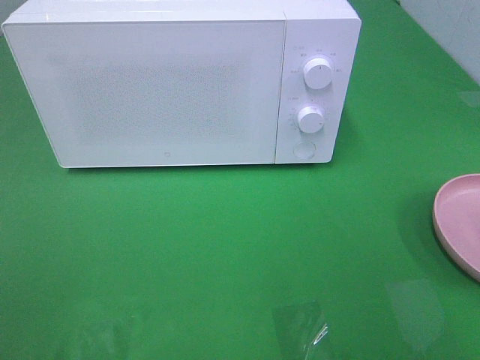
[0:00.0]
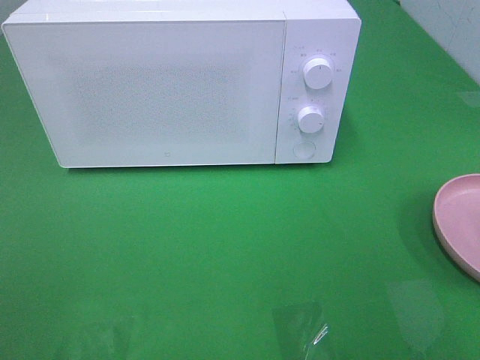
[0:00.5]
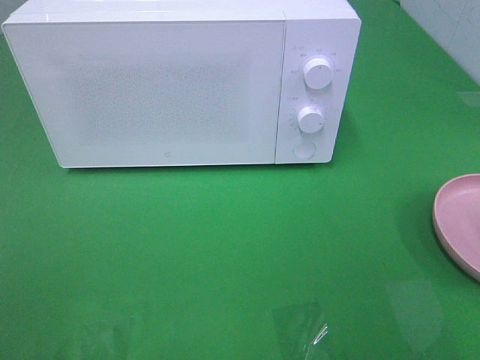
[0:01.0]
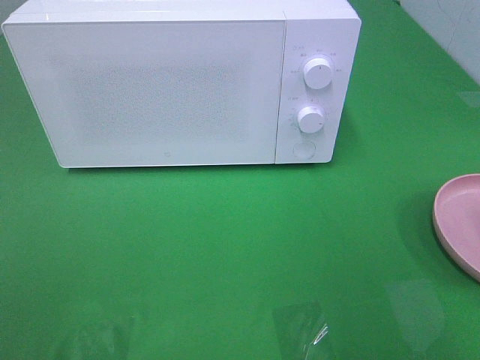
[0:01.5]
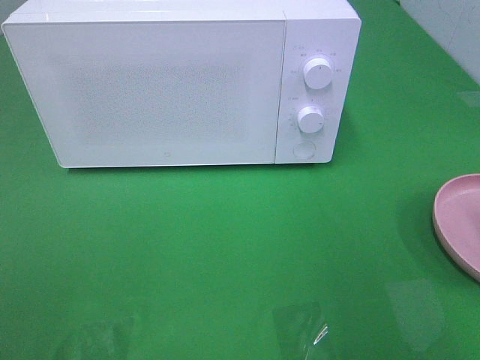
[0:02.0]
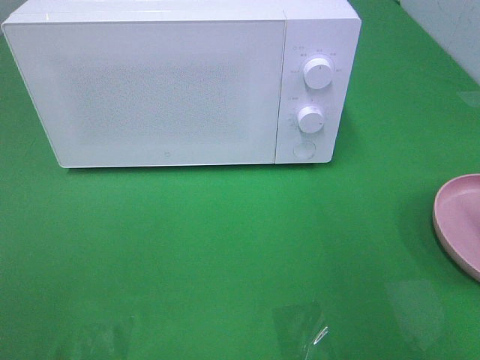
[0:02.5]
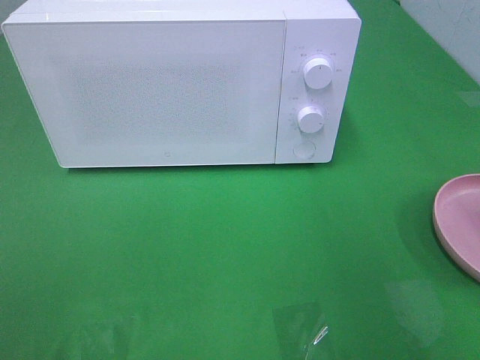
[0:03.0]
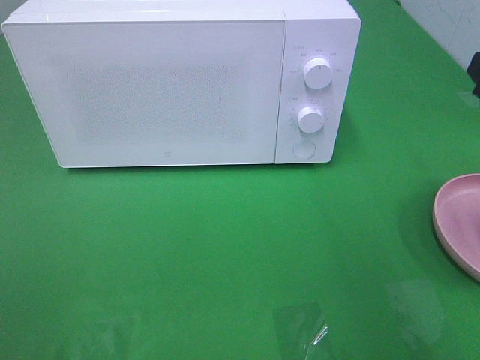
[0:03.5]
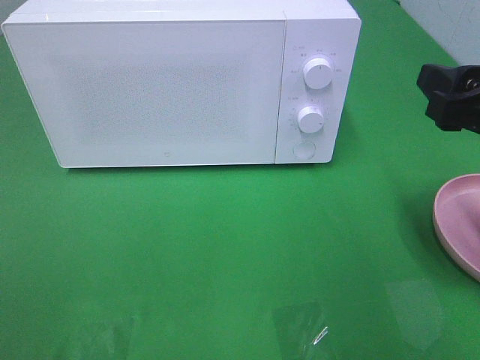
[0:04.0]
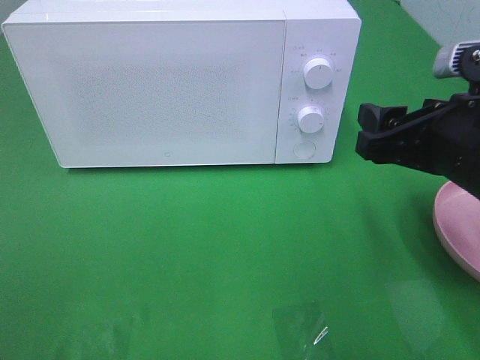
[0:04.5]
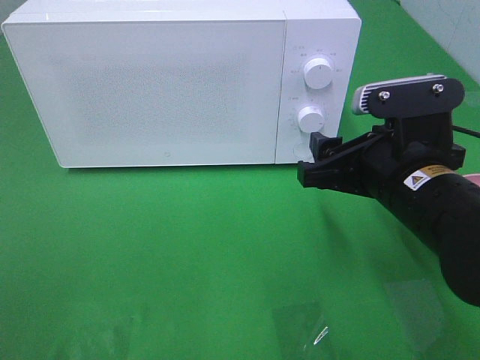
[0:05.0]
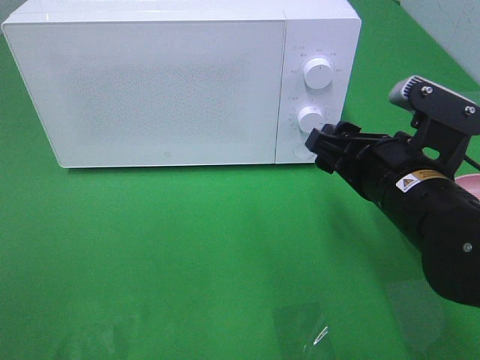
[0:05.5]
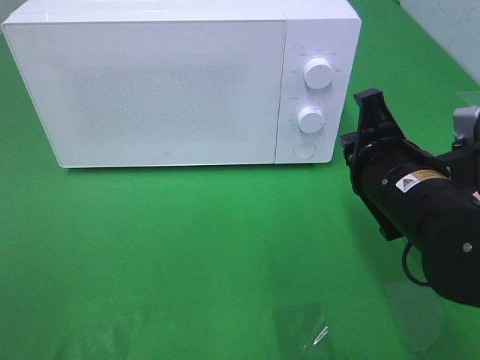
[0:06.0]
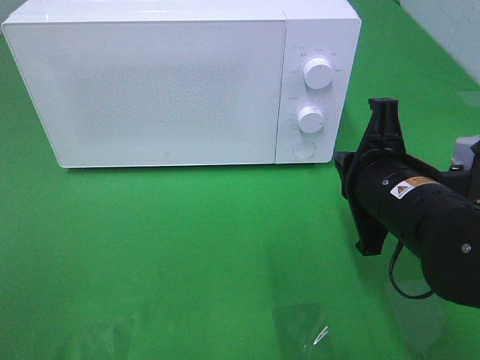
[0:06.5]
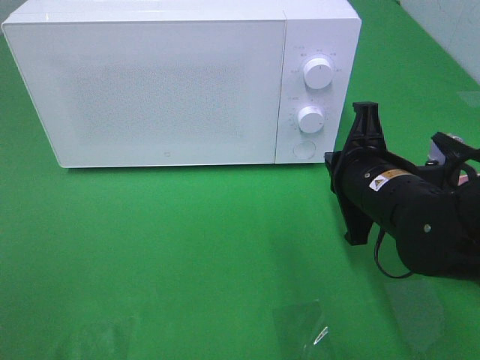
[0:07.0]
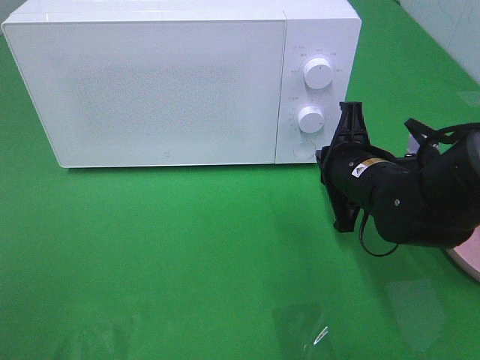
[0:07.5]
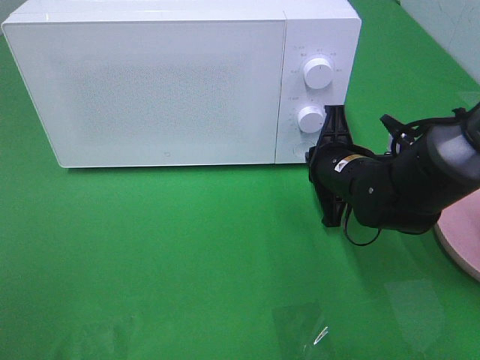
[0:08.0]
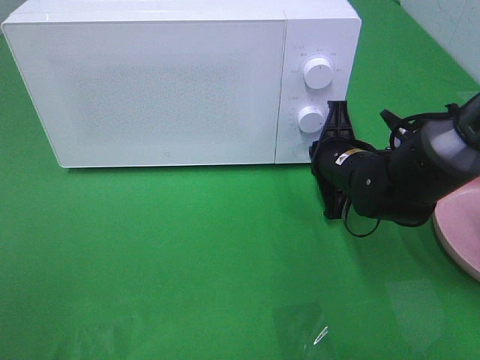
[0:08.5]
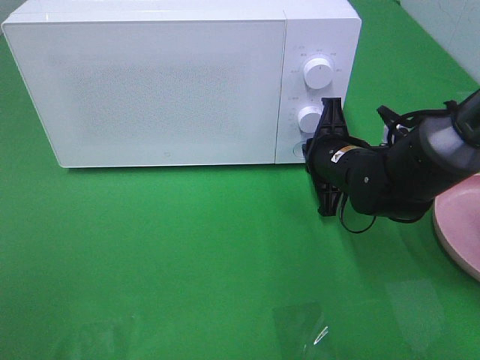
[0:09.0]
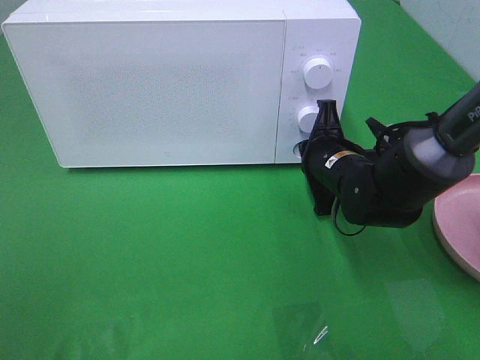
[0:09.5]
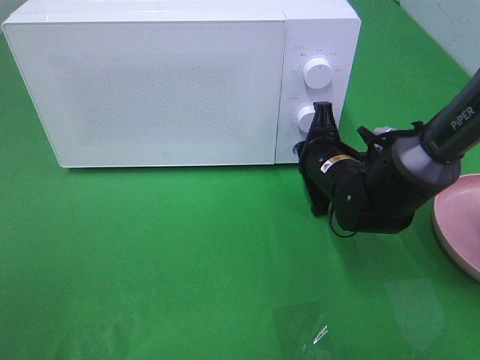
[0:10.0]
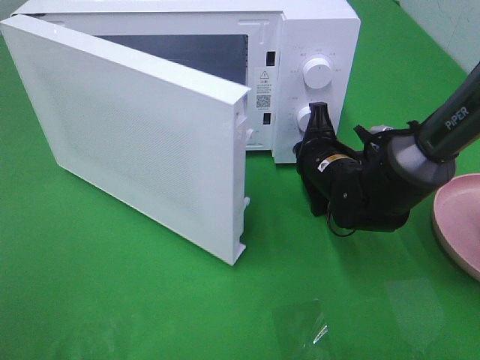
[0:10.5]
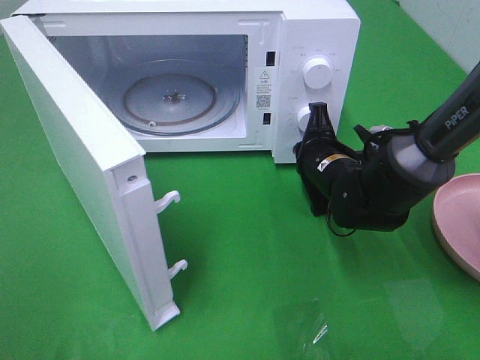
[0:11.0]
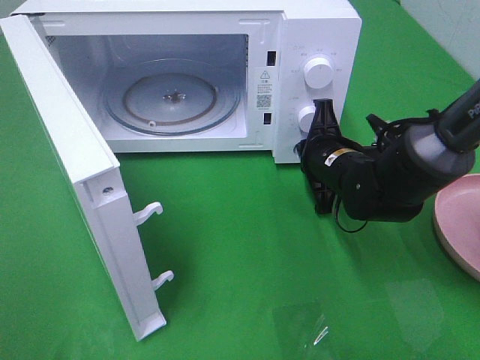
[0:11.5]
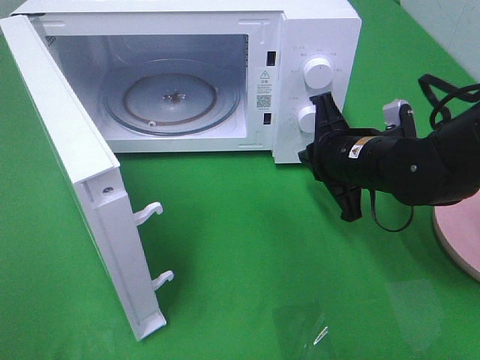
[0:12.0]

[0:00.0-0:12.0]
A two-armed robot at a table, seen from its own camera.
Task of the whole recording: Heat the burger.
Step, 0:00.0 to 0:11.5: Right hand: press the switch.
0:02.0 to 0:04.0: The right gripper is displaced downward by approximately 5 cm.
0:04.0 to 0:06.0: The right gripper moves to the left and downward, about 10 cm, and closes up.
0:06.0 to 0:08.0: The right gripper moves forward and downward, approximately 10 cm.
0:08.0 to 0:10.0: The grippers stay close to where they were, moving slightly.
0:10.0 to 0:12.0: The right gripper travels upward by roughly 5 cm.

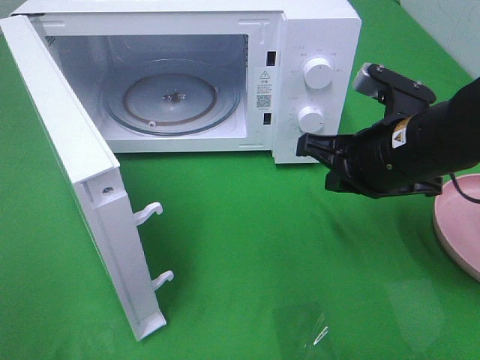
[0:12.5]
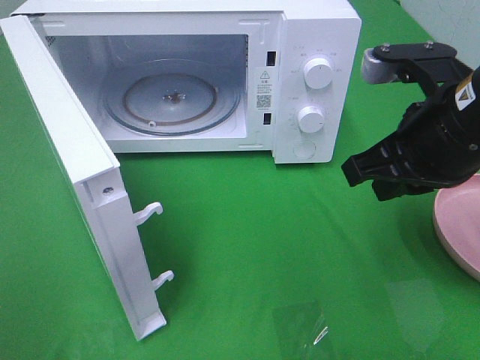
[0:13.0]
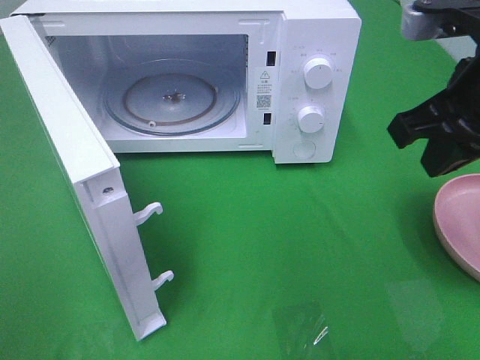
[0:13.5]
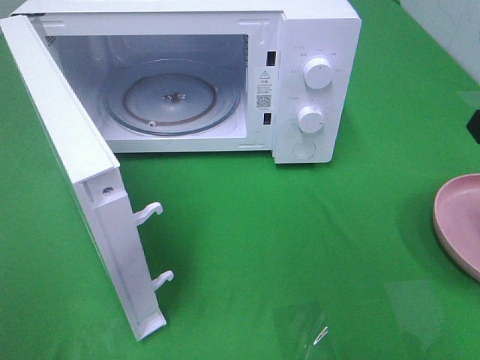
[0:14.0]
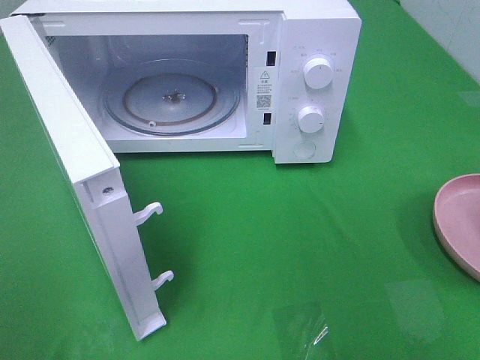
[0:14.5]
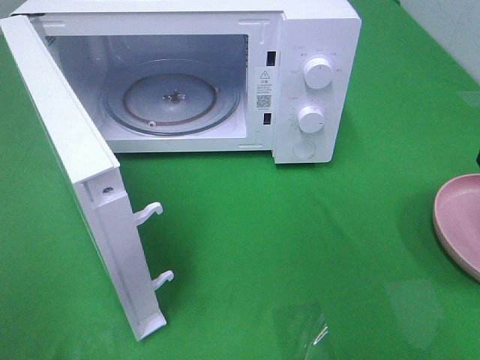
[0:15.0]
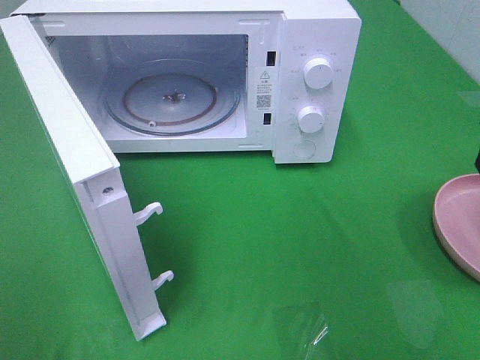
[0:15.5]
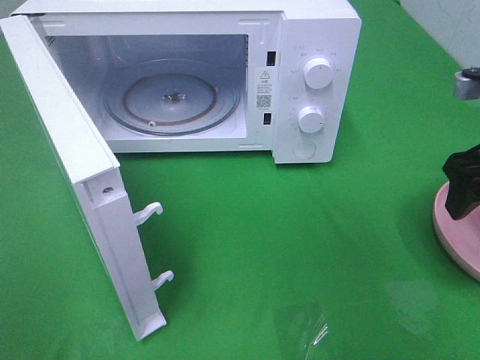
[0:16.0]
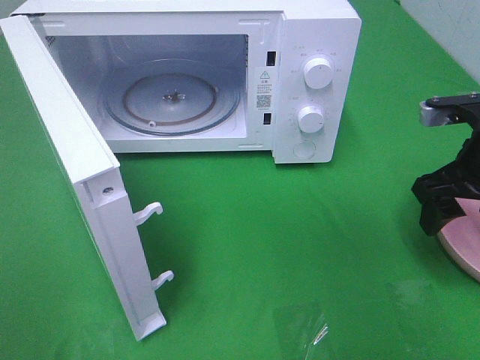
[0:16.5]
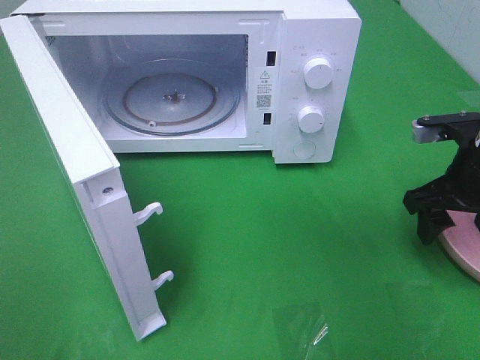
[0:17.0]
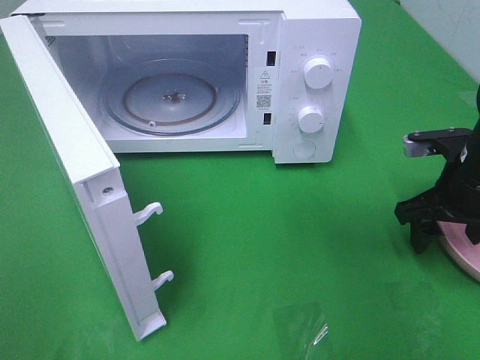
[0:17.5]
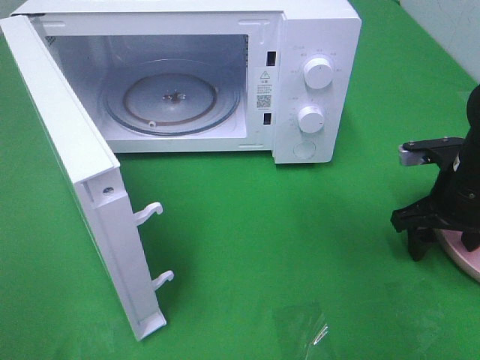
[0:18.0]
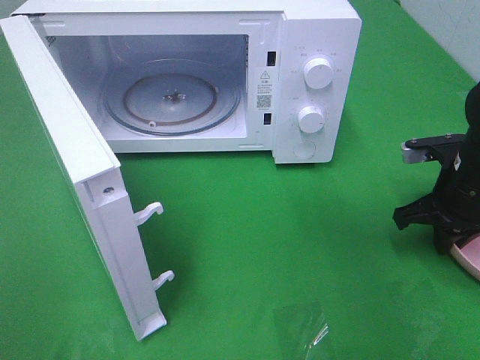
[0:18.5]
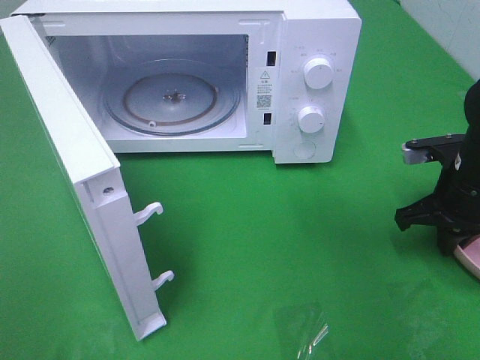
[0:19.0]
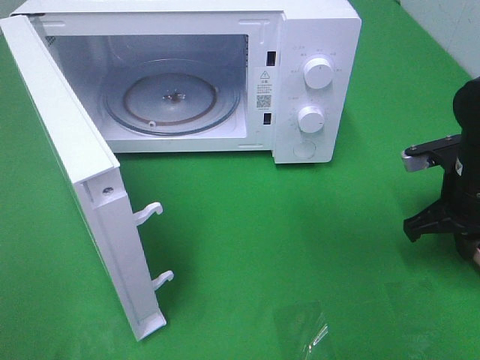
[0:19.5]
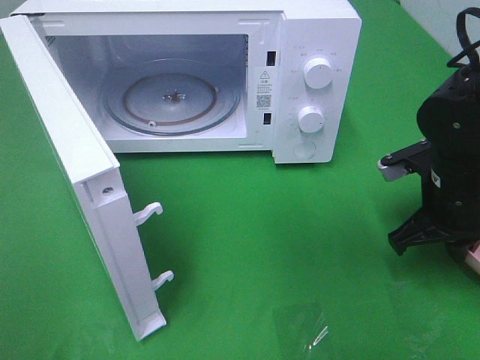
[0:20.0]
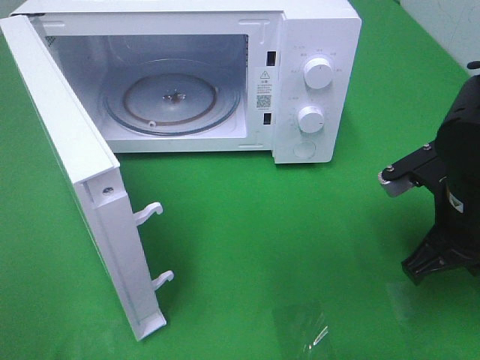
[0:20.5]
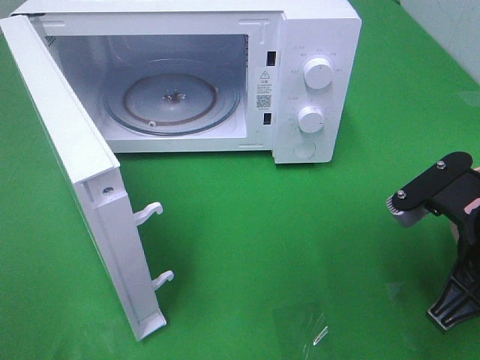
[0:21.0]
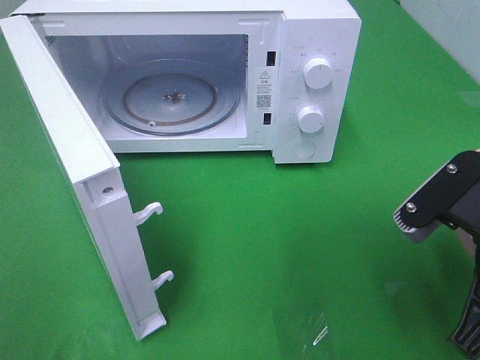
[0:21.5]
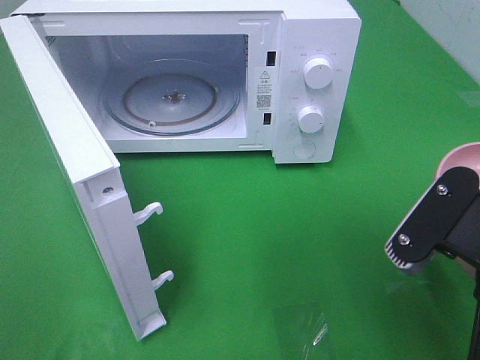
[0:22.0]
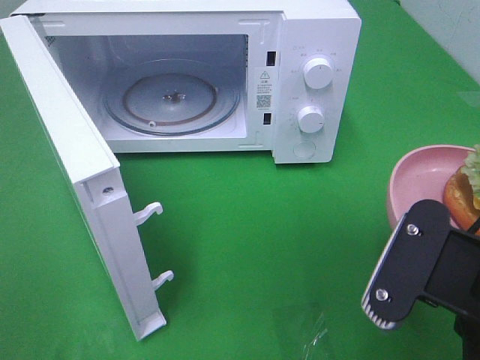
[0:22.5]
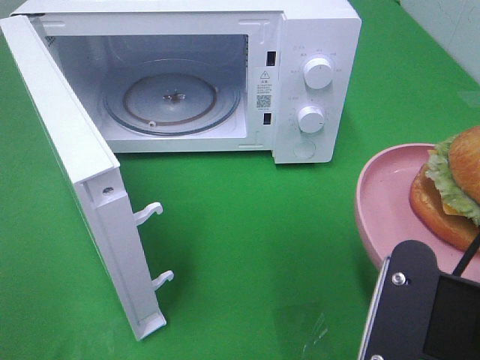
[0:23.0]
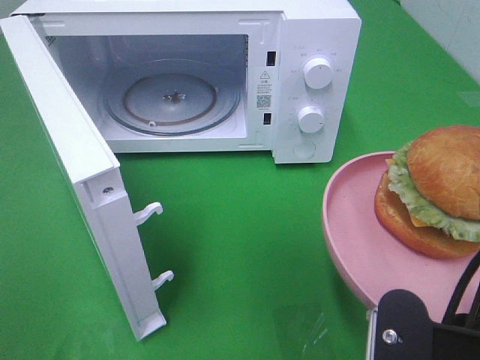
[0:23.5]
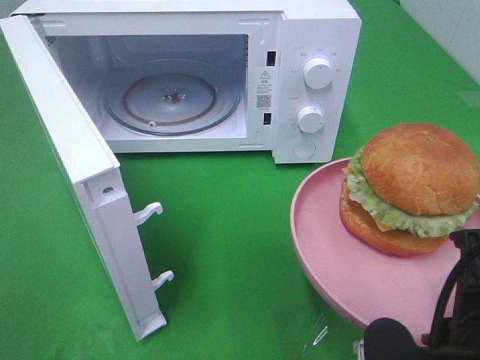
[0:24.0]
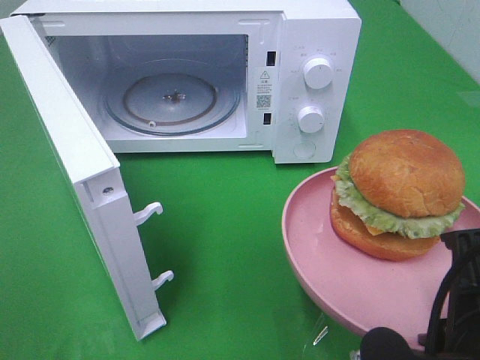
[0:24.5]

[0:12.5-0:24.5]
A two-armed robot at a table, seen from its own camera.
Task of the whole recording: Heat the burger.
Step, 0:12.5 to 0:18.5: Right hand: grab the plate with the hamburger.
0:12.5 to 0:14.5: The right gripper travels to the right and upward by some 15 cm.
0:14.5 to 0:16.5: The right gripper shifts roughly 10 cm downward, and opens up.
0:16.5 to 0:18.5: The right gripper is displaced downward by roughly 5 cm, and closes.
0:18.5 to 0:20.5: The right gripper goes approximately 10 cm backward and to the left.
0:20.5 to 0:22.5: The right gripper moves backward, roughly 15 cm.

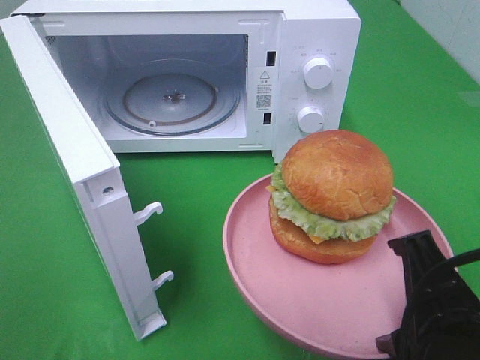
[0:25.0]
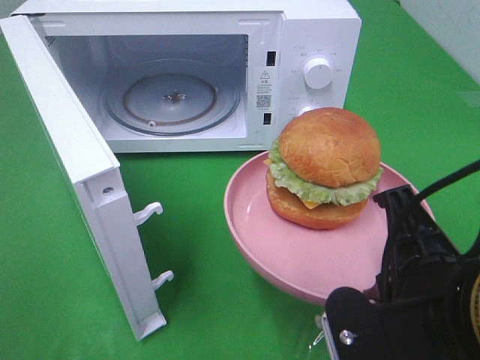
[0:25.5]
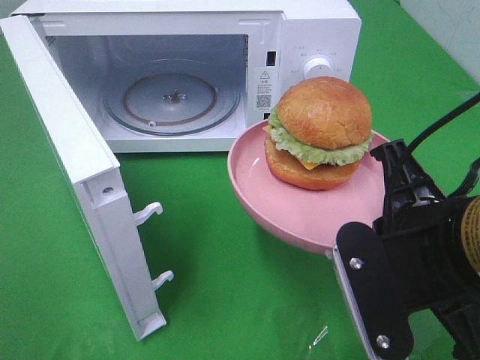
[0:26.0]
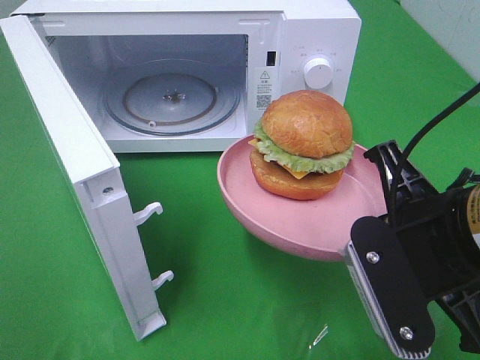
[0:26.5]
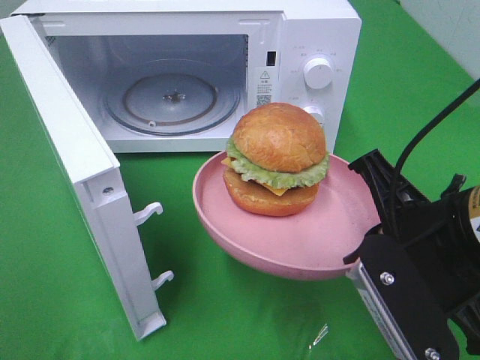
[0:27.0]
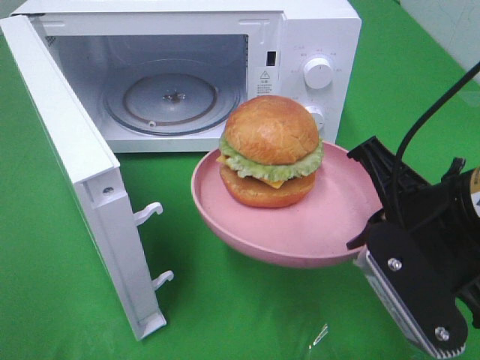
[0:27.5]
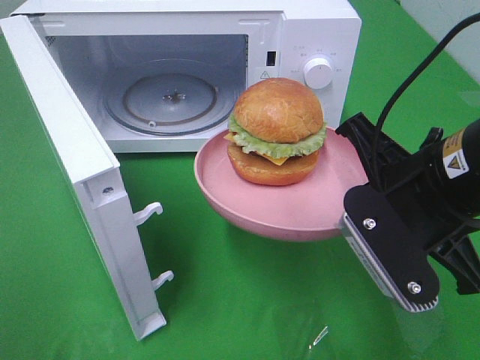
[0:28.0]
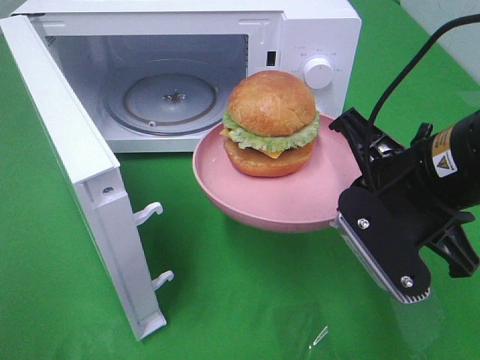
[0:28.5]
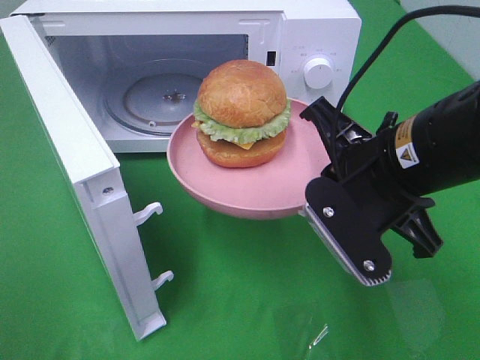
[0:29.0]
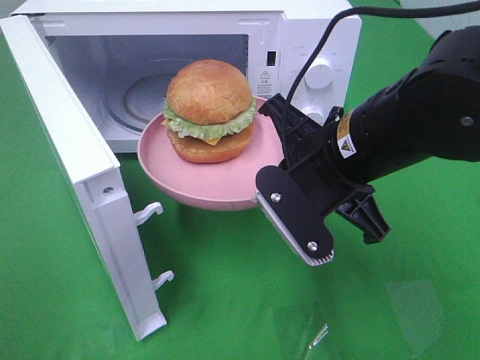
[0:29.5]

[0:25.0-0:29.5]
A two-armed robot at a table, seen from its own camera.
Task of the whole recording: Heat the burger.
0:25.0 to 0:27.0: The right gripper goes some 10 cm forward.
0:27.0 to 0:29.5: The right gripper goes some 10 cm forward and to the left.
